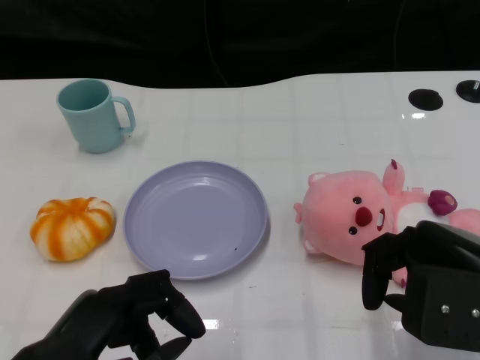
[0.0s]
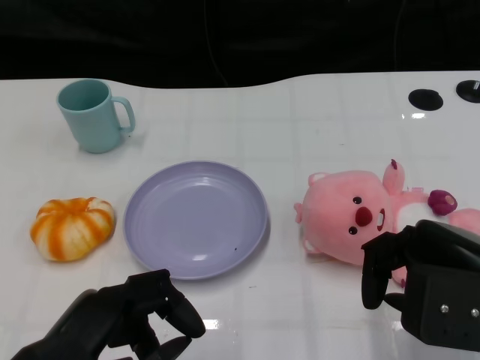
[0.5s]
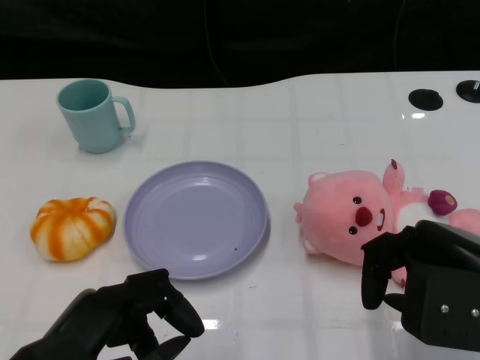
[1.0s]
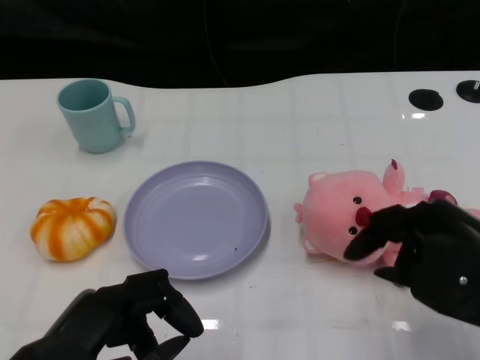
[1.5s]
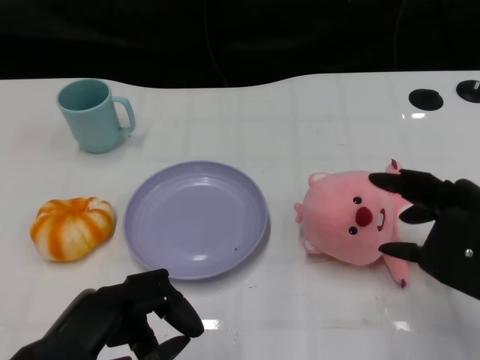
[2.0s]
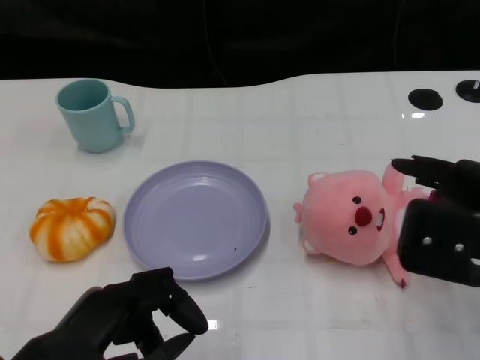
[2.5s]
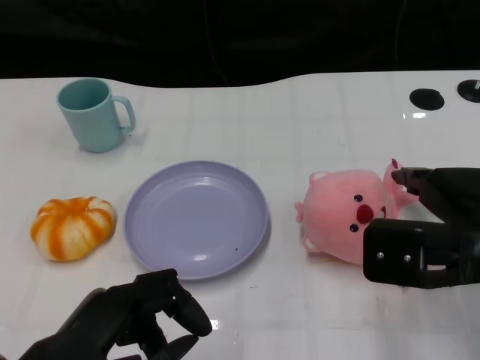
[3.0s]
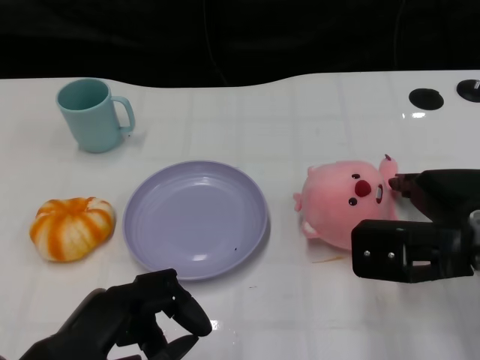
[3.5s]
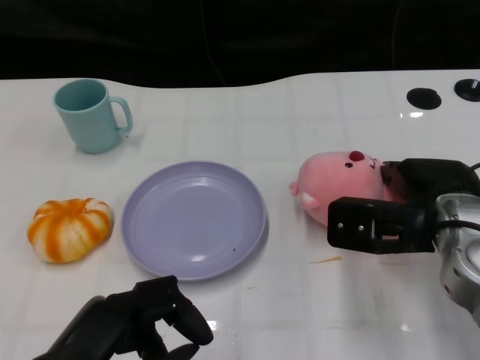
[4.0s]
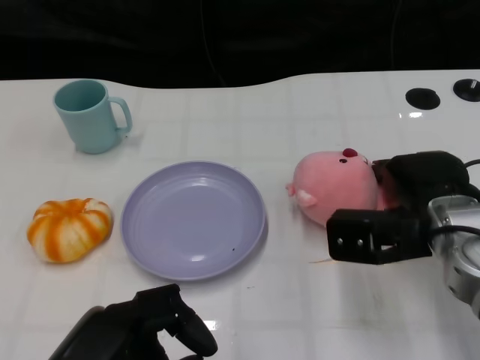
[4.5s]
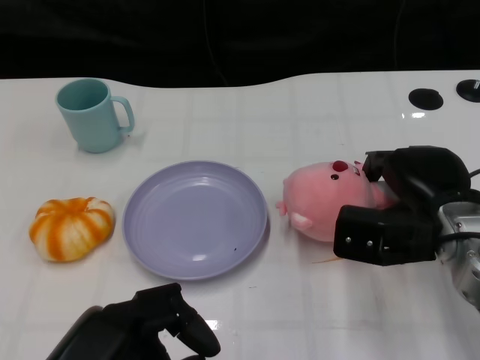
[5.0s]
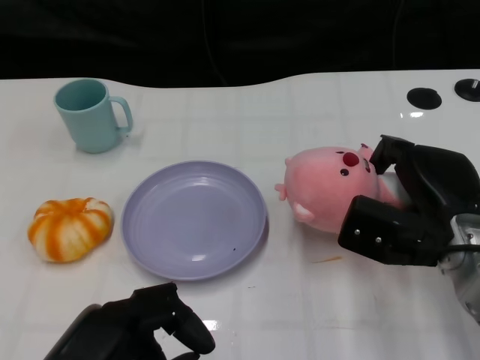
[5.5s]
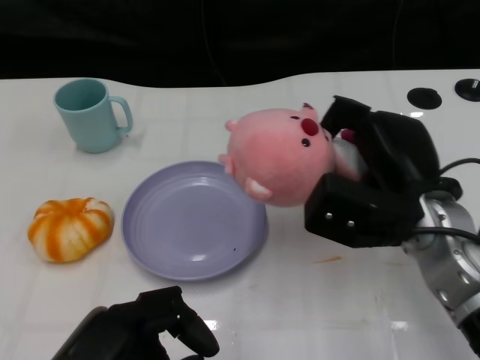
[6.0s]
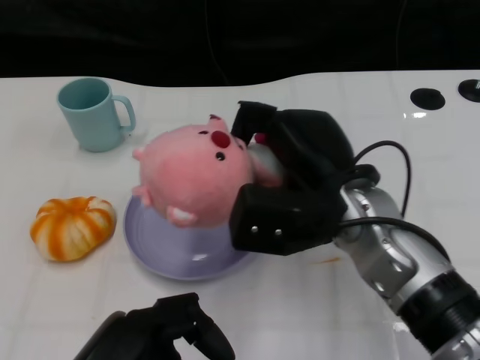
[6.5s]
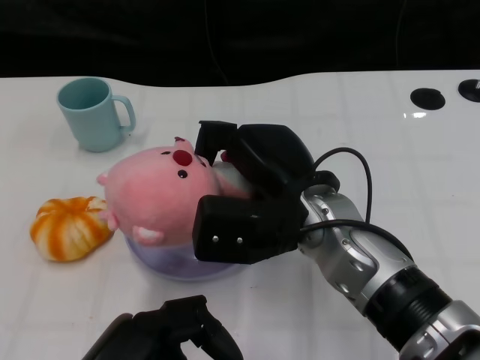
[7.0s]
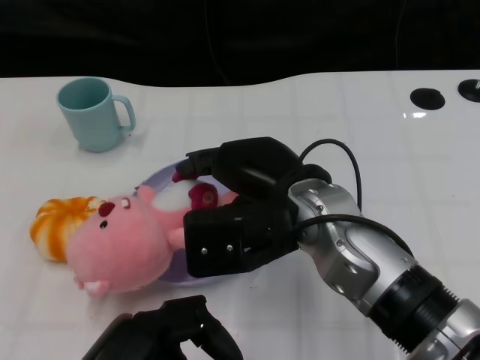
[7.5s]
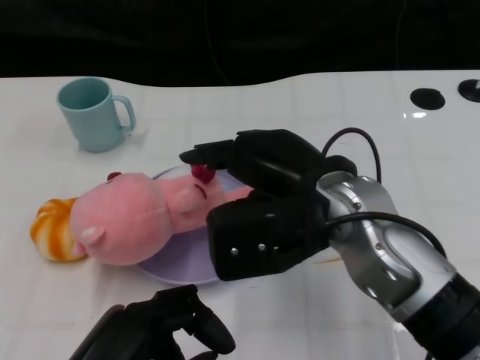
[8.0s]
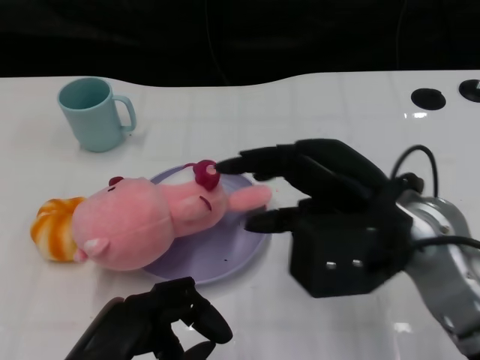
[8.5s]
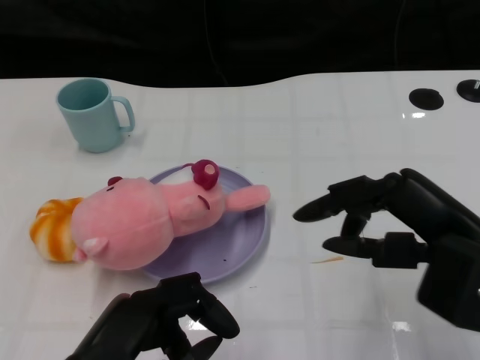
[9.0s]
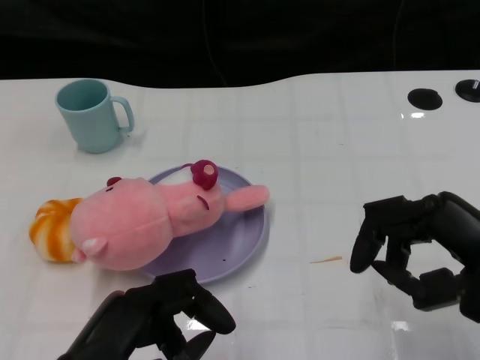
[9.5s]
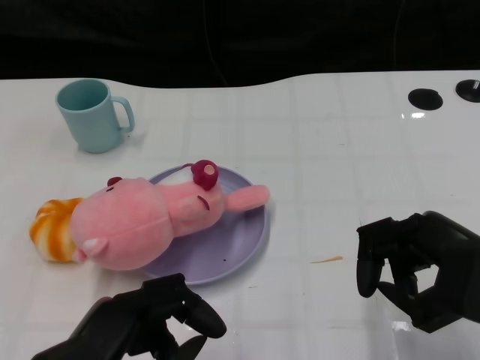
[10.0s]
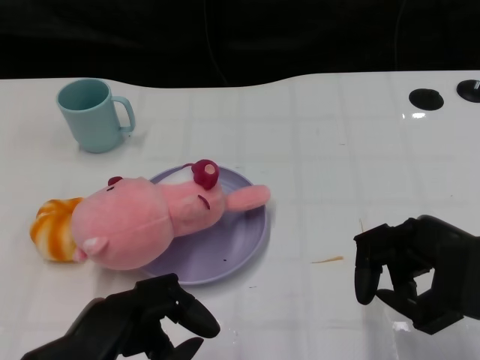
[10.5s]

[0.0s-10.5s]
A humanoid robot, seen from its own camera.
Task of the whole recording: Pick up the doll on the other side of the plate and place it into the plate.
Step, 1.5s to 6.0s: Grasp the pink doll with the right gripper.
Step, 6.5s to 8.5s: Place the pink doll into the plate with the right gripper.
2.0s to 4.0s: The right hand travels forward and downward by some 10 cm.
4.0s to 6.5s: The right hand goes about 10 cm to the left.
6.5s to 8.5s: The right hand shifts by some 5 cm.
8.5s to 10.5s: The right hand travels to the right and backward by roughly 10 cm.
